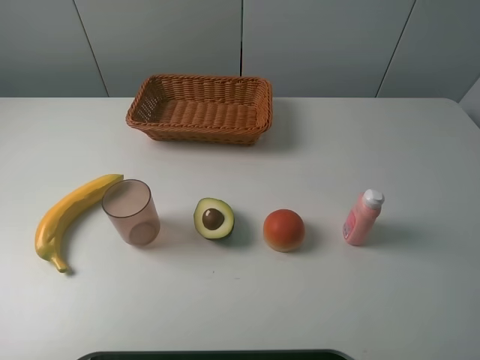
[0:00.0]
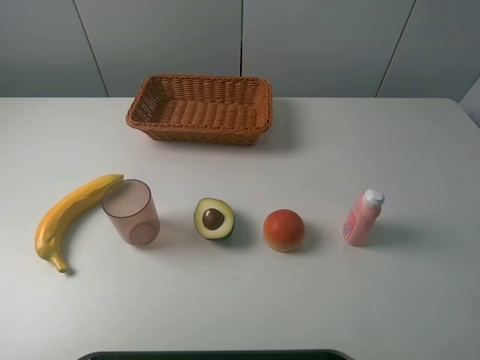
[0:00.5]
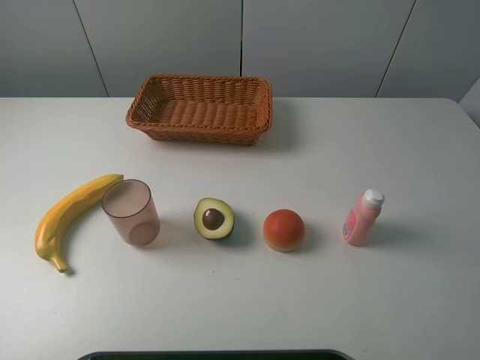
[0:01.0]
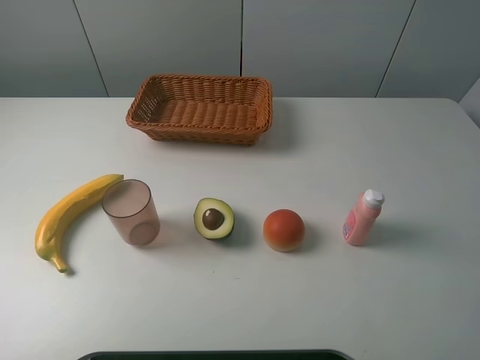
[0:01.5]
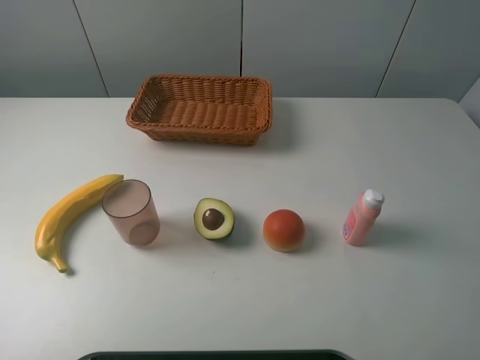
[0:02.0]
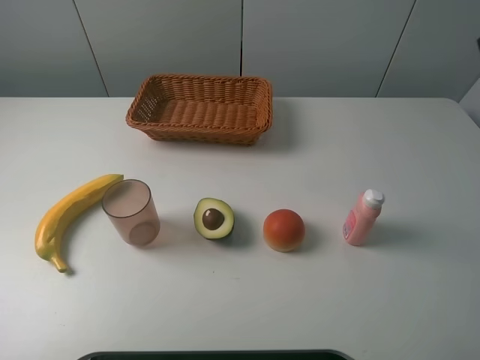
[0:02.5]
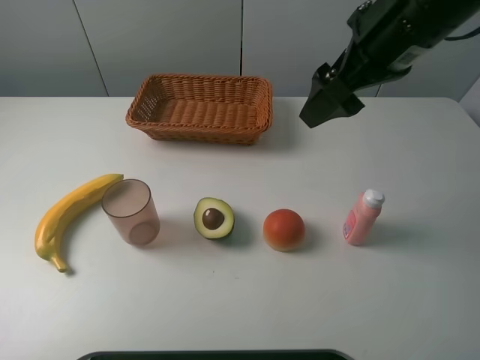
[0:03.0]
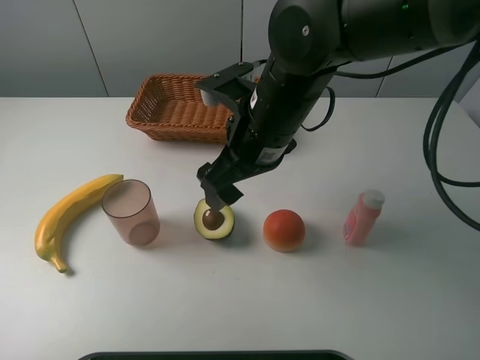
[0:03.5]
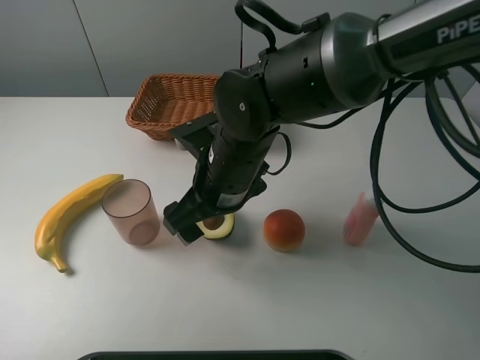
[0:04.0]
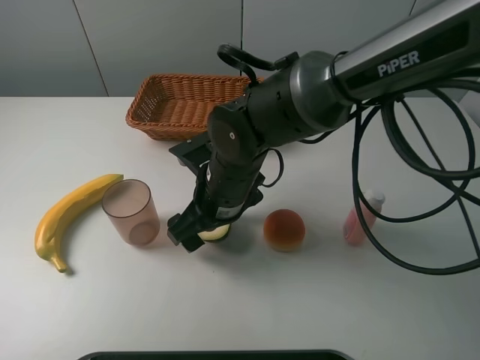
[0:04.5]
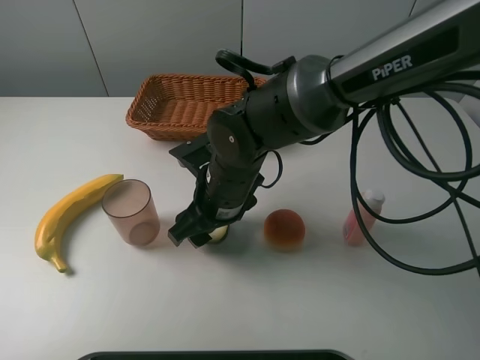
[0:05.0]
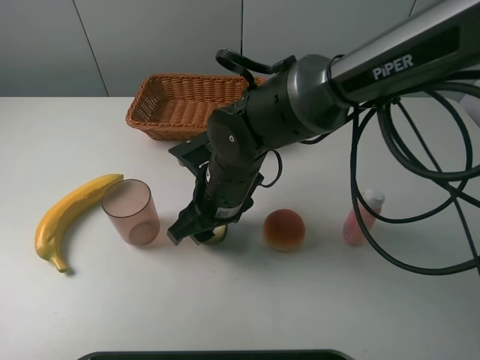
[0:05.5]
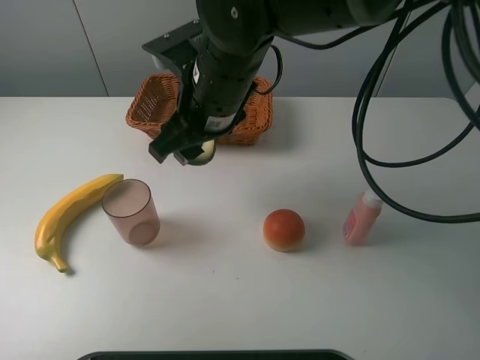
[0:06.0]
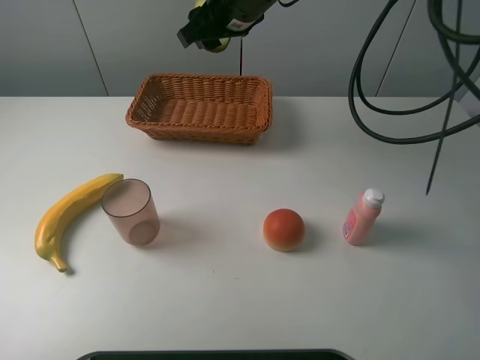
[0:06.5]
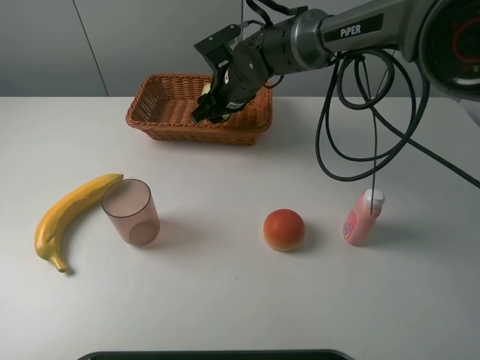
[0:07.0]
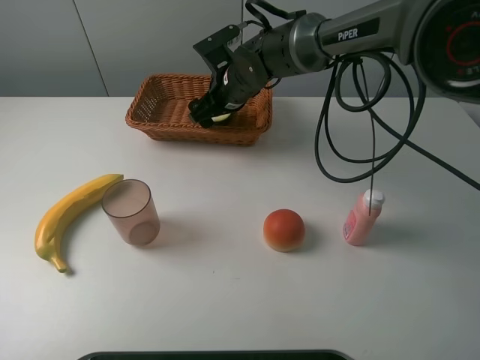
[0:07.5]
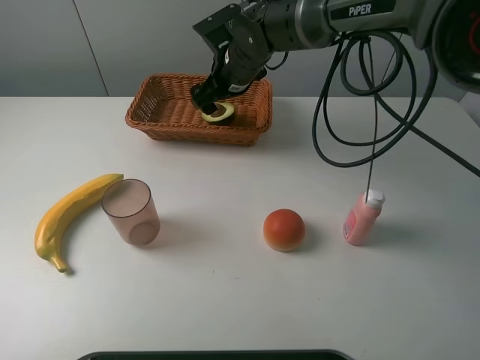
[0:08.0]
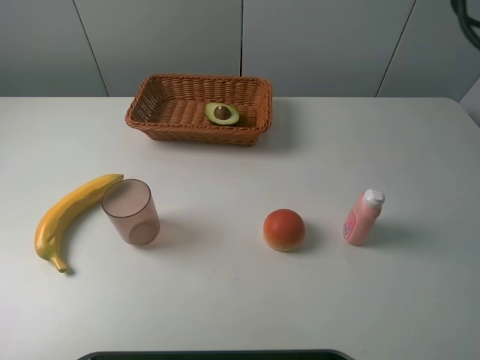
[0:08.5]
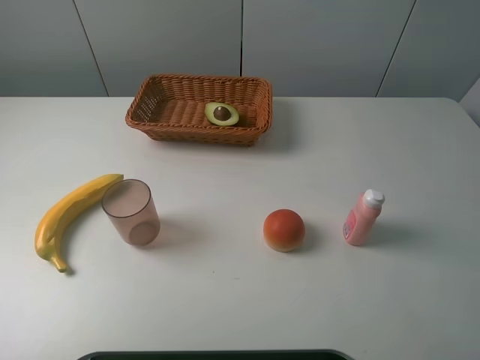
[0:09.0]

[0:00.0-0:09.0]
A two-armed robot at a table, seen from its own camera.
Task of the whole recording: randomly pick up an item from the table and put it in the basket.
Step, 0:00.0 to 0:05.0: Grasp the avocado with the right gripper.
Step, 0:05.5 to 0:08.0: Place the avocado into the basket with the right gripper.
0:02.0 to 0:04.5: The right gripper moves to the left, forward and downward, approximately 40 cm.
0:04.5 to 0:07.0: The right gripper moves forward, approximately 20 cm, and closes up.
0:07.0 to 0:09.0: The right gripper shifts approximately 40 cm upward, to the right and backward, and opens.
